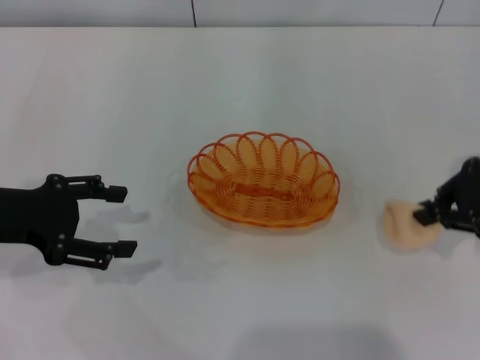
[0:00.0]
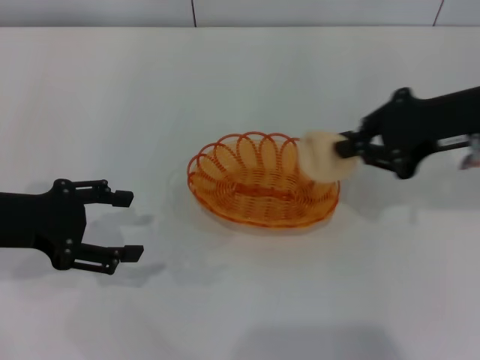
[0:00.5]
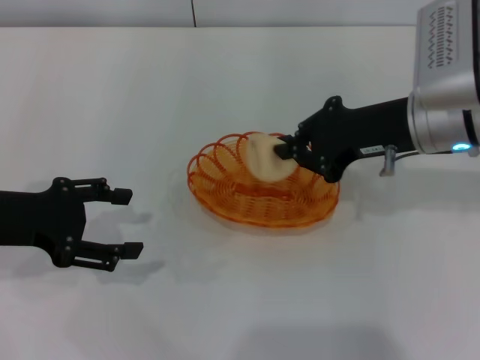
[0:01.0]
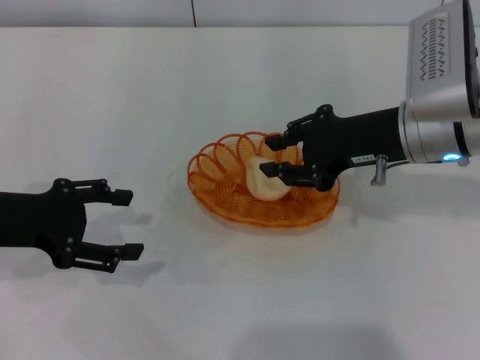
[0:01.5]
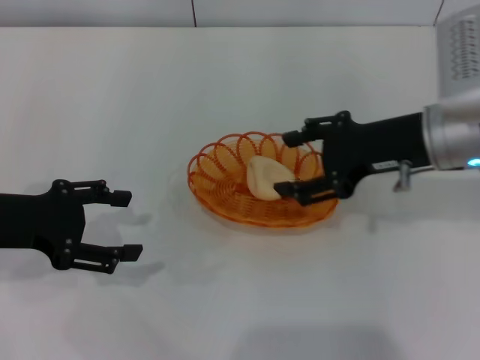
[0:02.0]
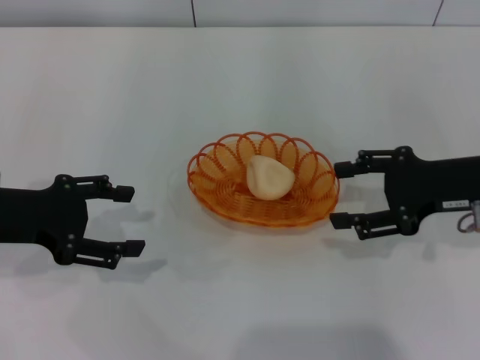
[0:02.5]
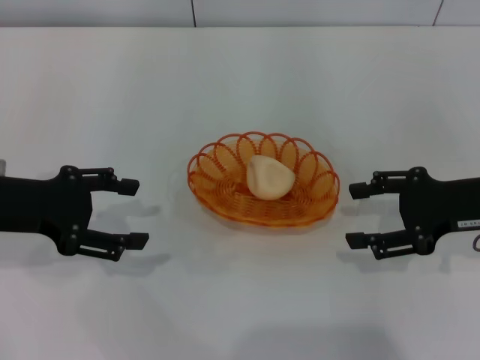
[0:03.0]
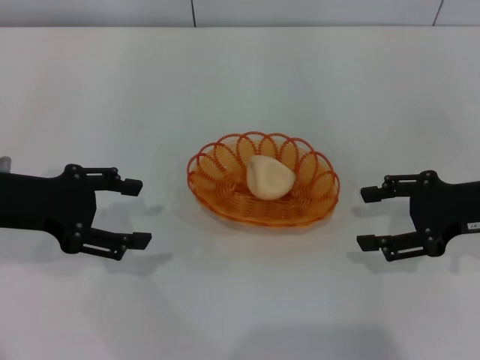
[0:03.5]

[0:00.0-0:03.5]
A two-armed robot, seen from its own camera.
Step, 0:00.5 to 0:02.0: Place the egg yolk pastry into the basket with the right gripper.
0:00.0 to 0:02.0: The right gripper is displaced to the left by approximately 10 cm, and opens its fingers.
0:02.0 to 0:03.5: The right gripper heads to the right, covering about 10 cm.

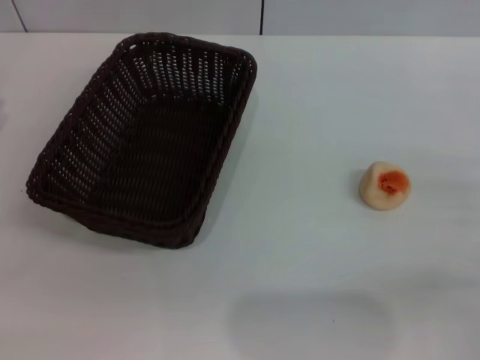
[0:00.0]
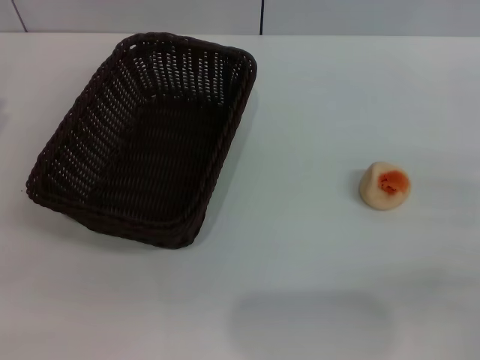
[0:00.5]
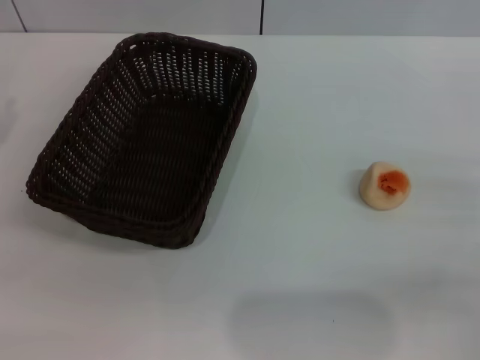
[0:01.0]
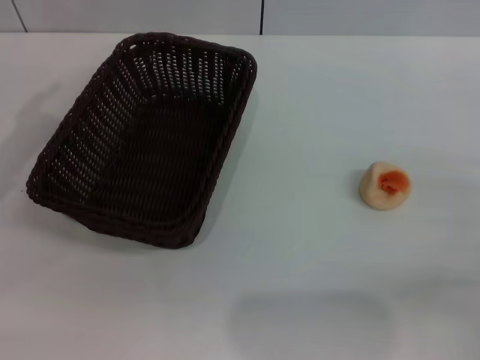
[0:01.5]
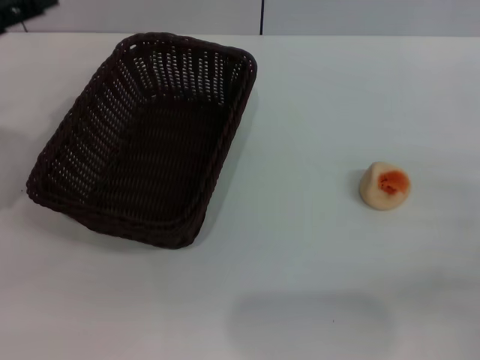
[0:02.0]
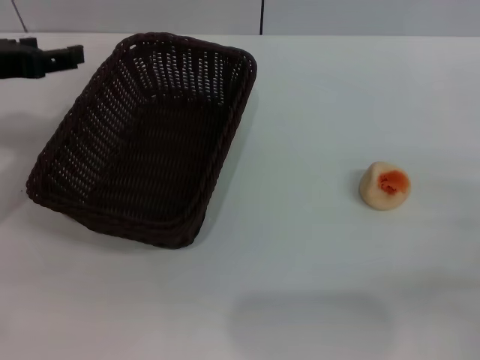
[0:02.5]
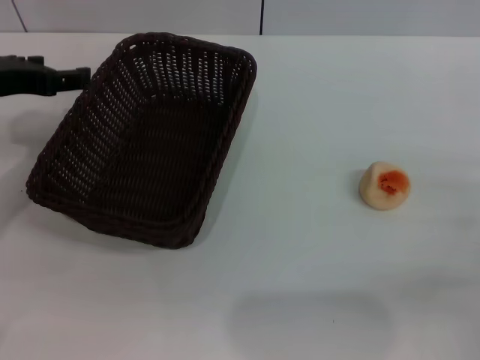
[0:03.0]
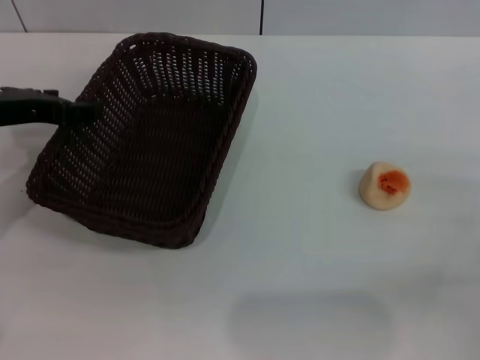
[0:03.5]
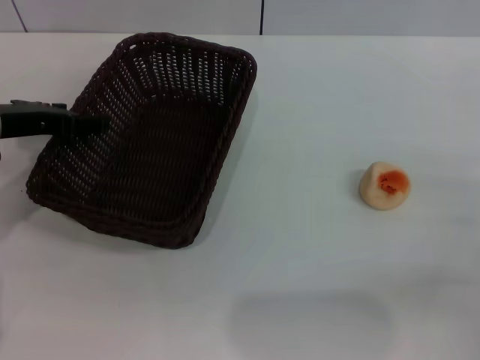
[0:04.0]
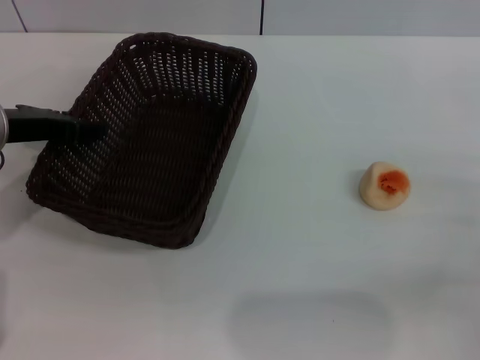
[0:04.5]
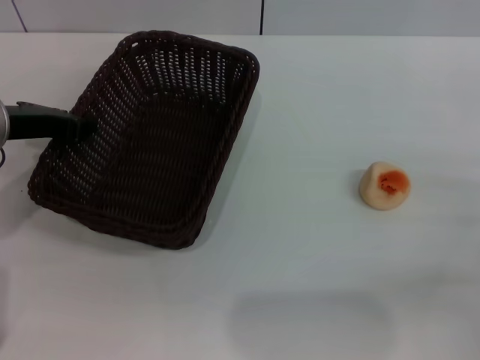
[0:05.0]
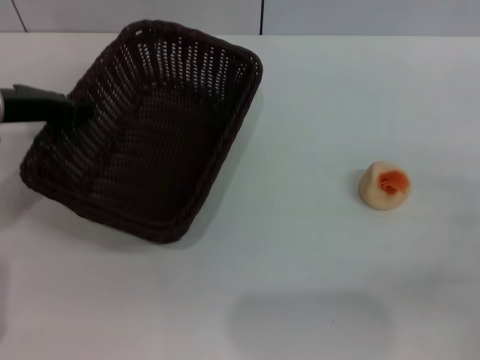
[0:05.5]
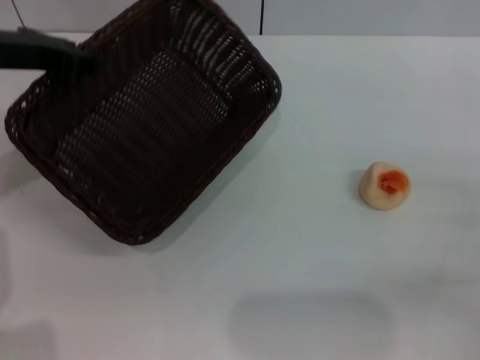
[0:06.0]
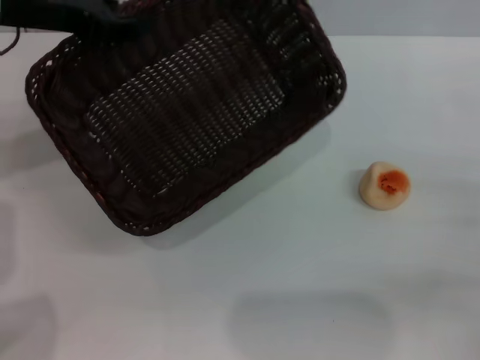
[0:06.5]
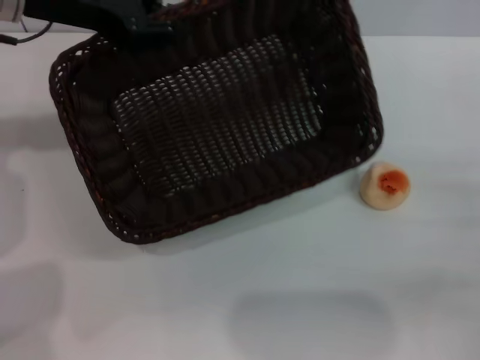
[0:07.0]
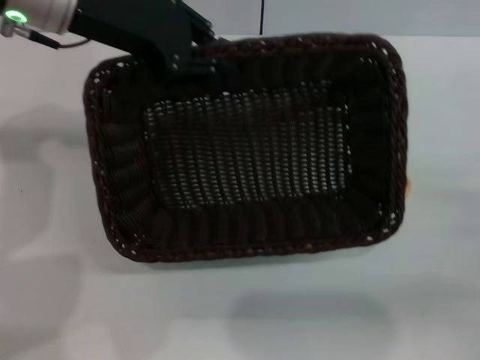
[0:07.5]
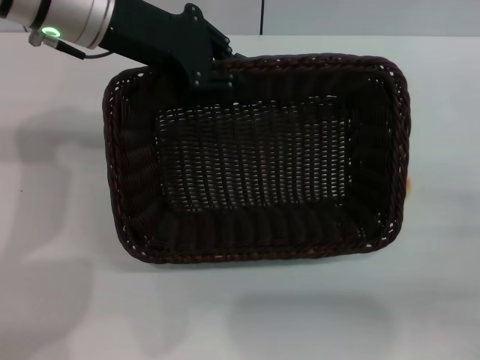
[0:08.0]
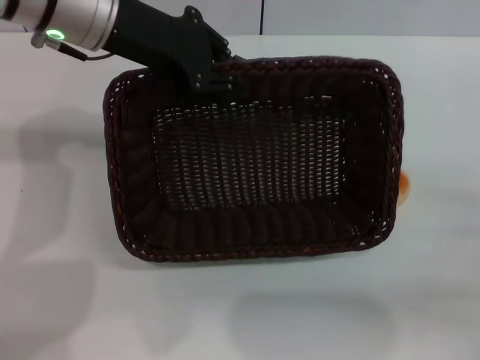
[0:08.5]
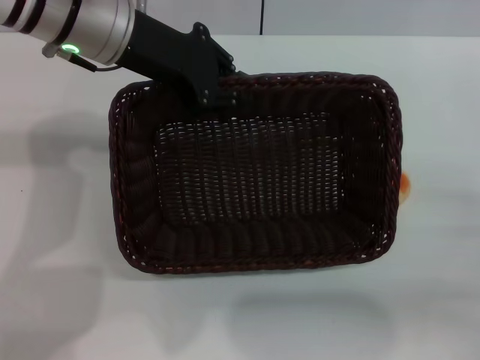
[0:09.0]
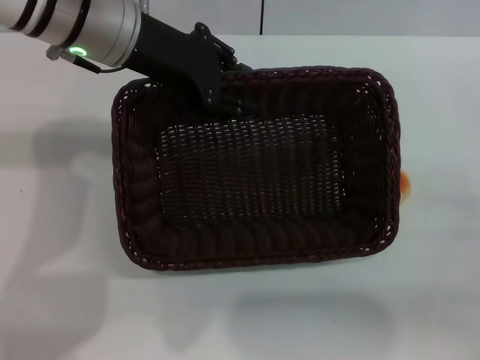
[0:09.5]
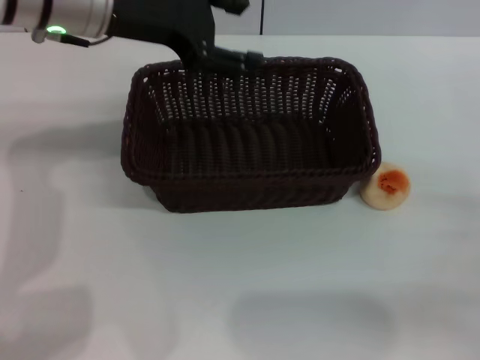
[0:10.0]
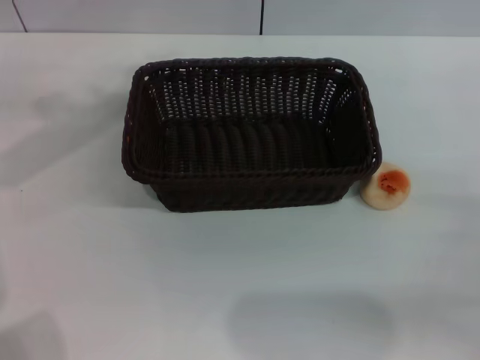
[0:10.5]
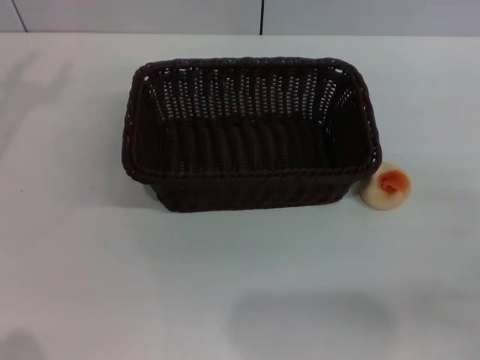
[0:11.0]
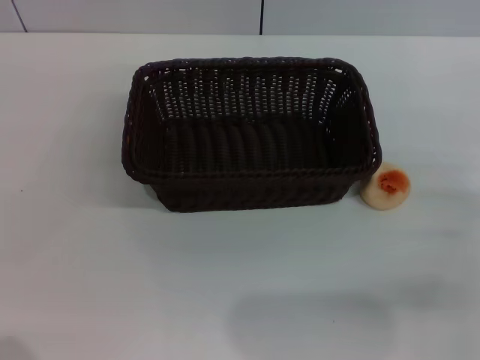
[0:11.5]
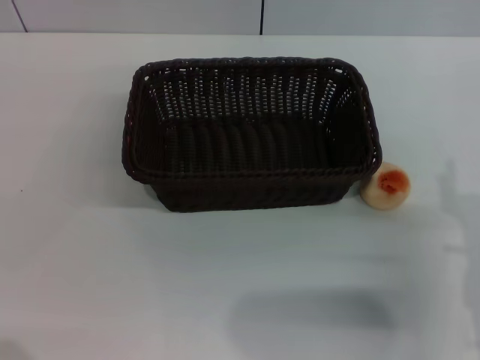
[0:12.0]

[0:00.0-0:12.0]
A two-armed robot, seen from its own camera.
Step, 0:00.0 to 0:10.0: Move the basket to the center of view with the left gripper.
0:00.0 to 0:02.0: The left gripper shifts about 10 cm upward and to the right.
0:02.0 to 0:04.0: The left gripper moves downward, roughly 5 cm.
0:04.0 to 0:06.0: The left gripper travels upward by roughly 5 cm, and closes up.
0:06.0 to 0:08.0: The left gripper is displaced to the right by some 10 cm.
0:08.0 to 0:10.0: The left gripper opens.
0:10.0 to 0:12.0: The left gripper shifts some 30 cm to the left, downward and backward; the right gripper travels to the left by some 10 cm.

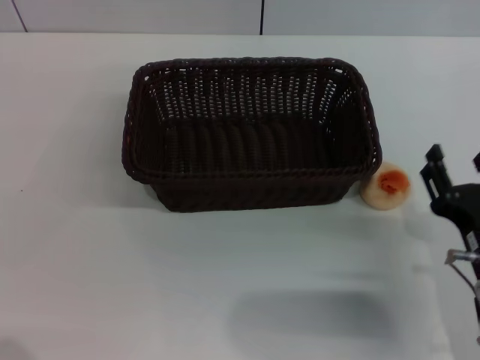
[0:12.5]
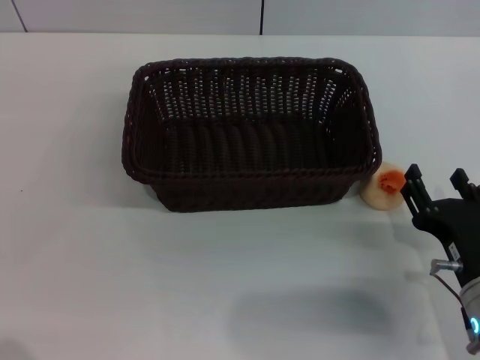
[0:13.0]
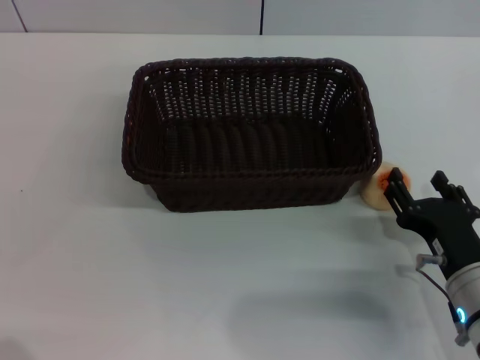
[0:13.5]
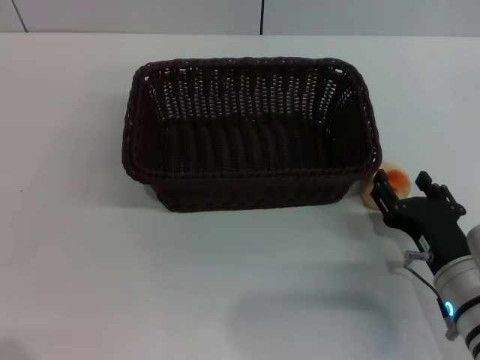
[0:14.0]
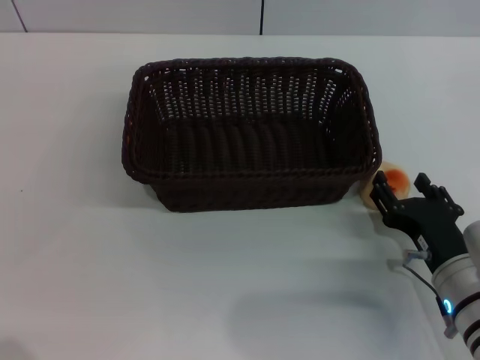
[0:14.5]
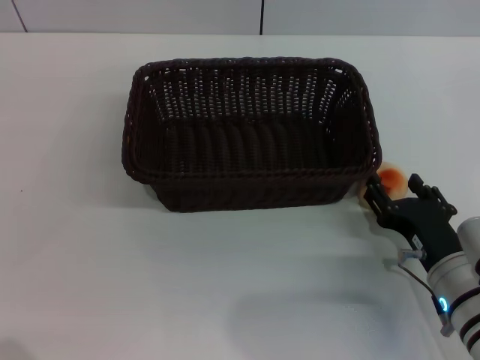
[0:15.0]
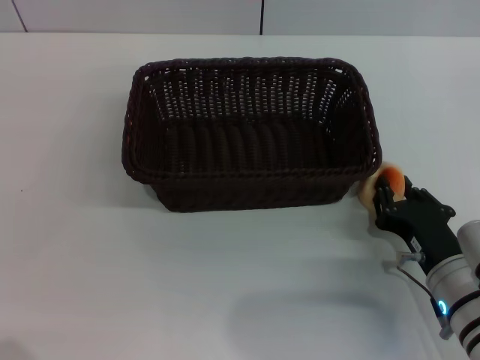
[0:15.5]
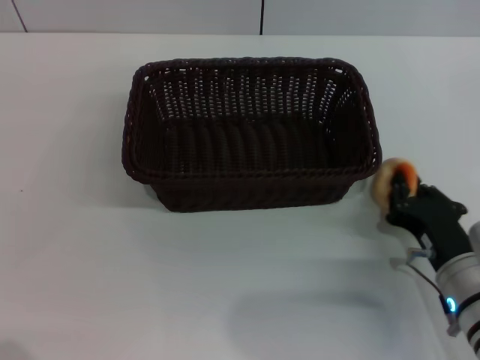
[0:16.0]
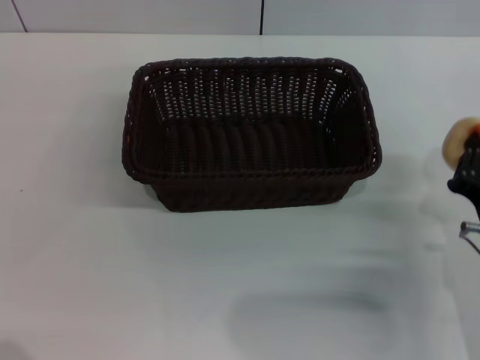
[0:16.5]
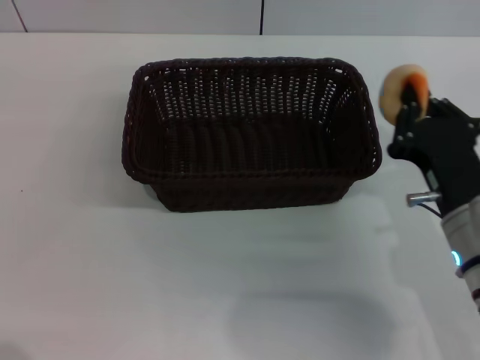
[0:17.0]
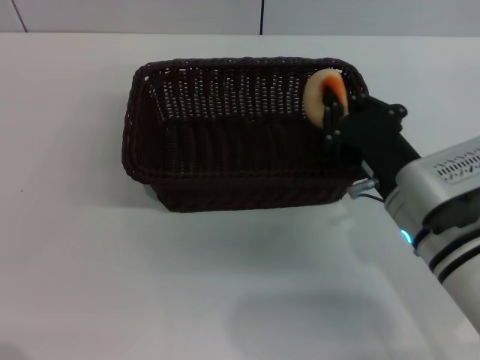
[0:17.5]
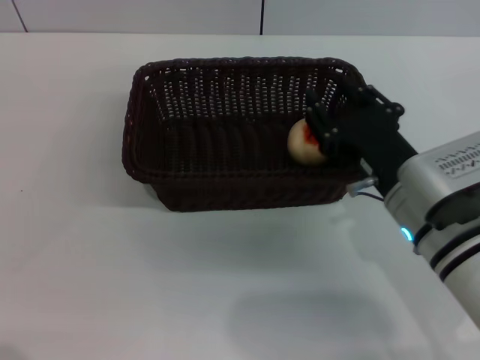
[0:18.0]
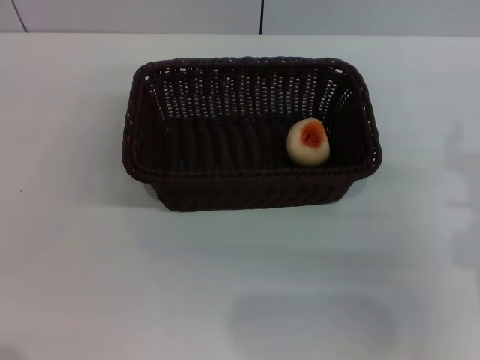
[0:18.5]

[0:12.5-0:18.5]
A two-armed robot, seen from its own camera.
Step, 0:12.5 to 0:16.0: Pick up the egg yolk pastry with the right gripper.
Step, 0:16.5 to 0:18.0: Place the egg yolk pastry into the basket with the right gripper.
0:12.5 to 0:14.5: The grippers move only a little.
0:14.5 to 0:16.5: The right gripper closes.
0:16.5 to 0:18.5: The right gripper travels upward by some 5 cm, moves roughly 5 cm to the left and comes back, and opens.
